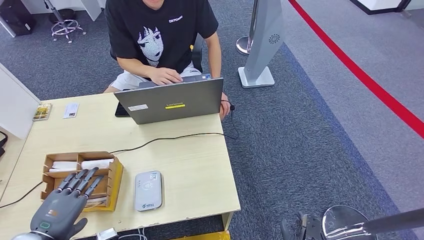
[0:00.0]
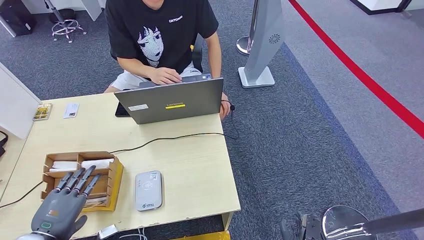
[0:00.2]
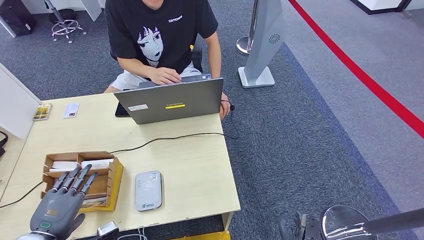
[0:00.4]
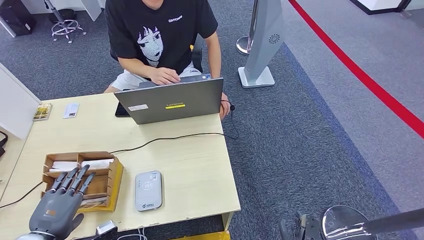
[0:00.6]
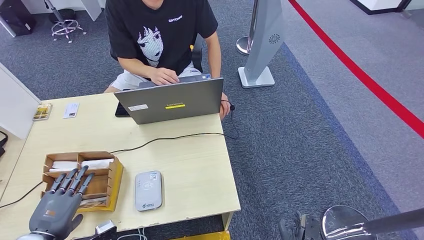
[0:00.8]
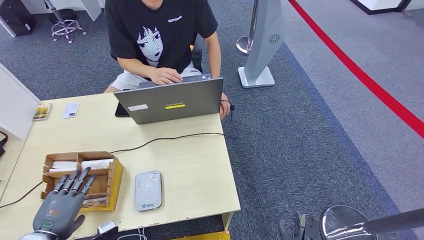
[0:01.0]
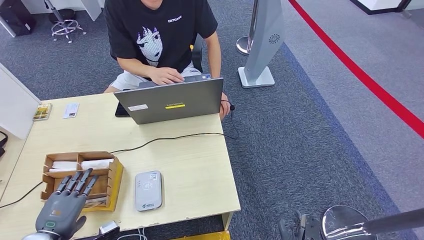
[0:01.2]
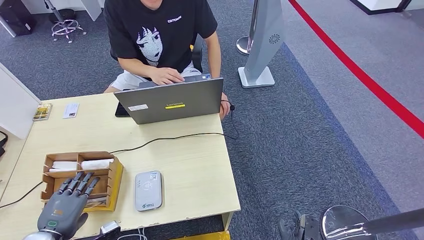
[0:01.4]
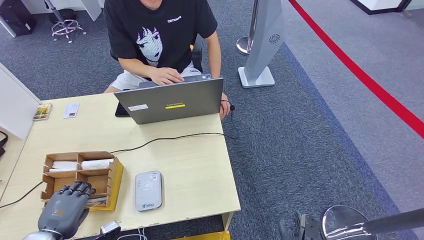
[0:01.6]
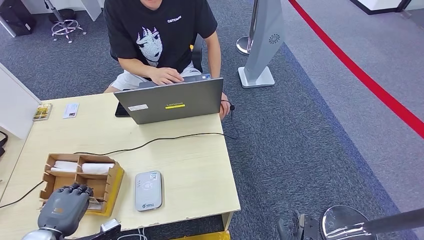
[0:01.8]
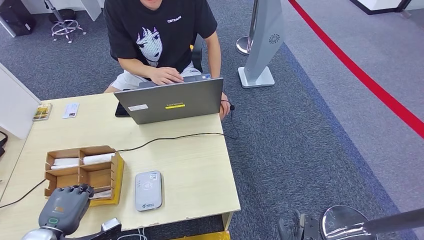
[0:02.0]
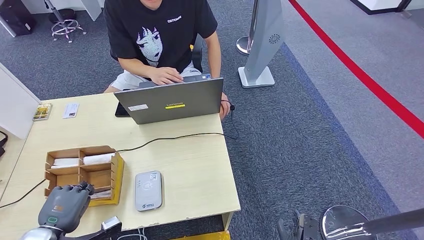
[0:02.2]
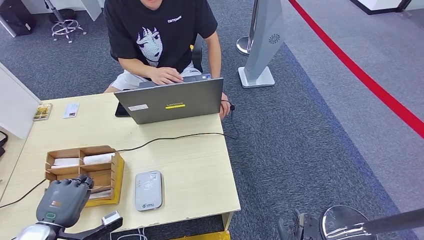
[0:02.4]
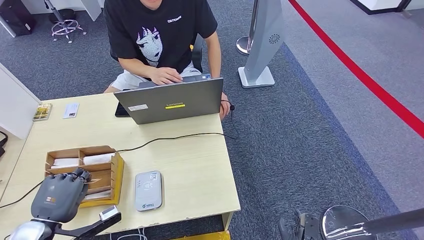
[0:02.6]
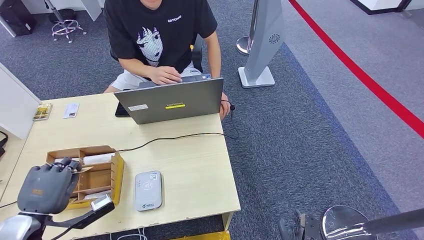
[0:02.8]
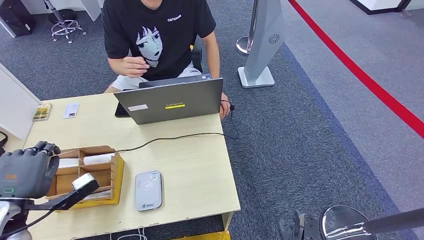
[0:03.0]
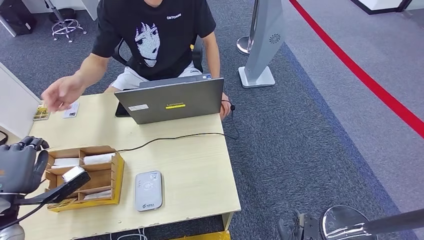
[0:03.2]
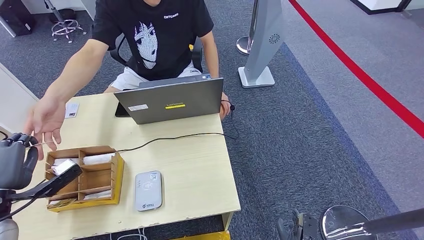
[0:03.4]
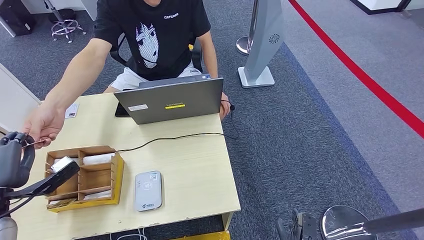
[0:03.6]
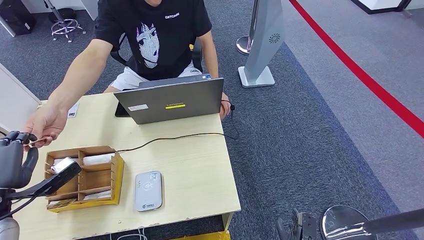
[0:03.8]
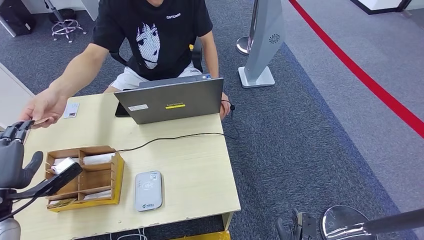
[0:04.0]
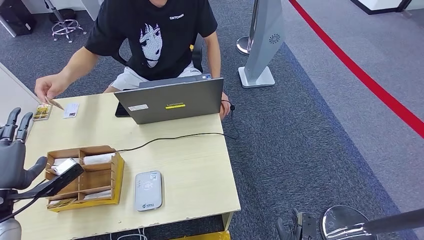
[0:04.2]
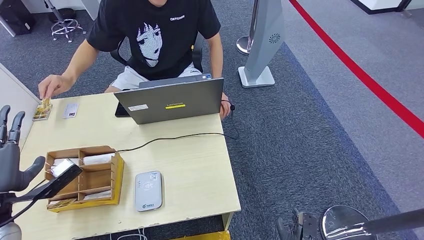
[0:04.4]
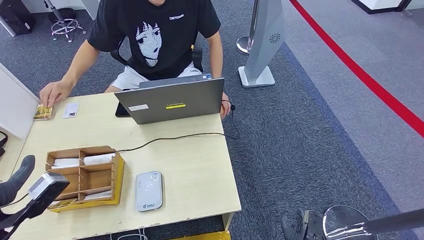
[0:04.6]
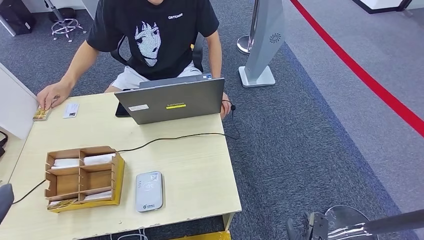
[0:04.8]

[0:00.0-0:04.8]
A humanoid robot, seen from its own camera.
Step, 0:00.0 to 0:02.2: Pick up the room key from the key card box.
Step, 0:02.4 to 0:04.8: Hand the room key to the person.
0:00.0 to 0:01.6: The left hand shifts by some 5 cm.
0:01.6 to 0:03.2: The left hand heads upward and forward, covering some 10 cm.
0:03.2 to 0:04.8: The left hand moves backward, some 10 cm.
